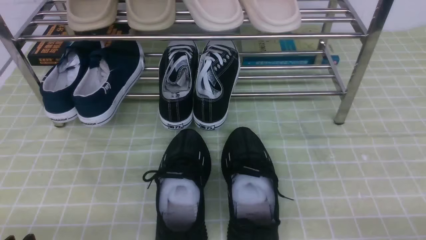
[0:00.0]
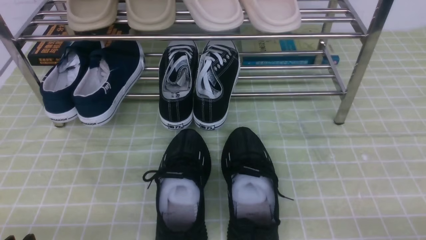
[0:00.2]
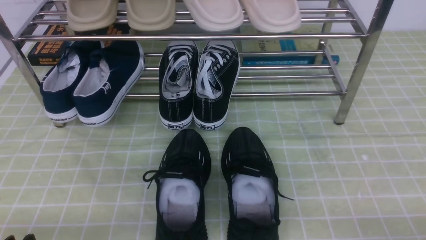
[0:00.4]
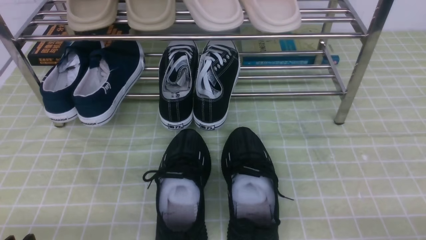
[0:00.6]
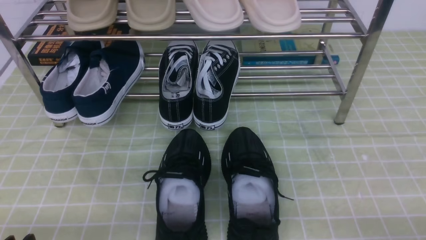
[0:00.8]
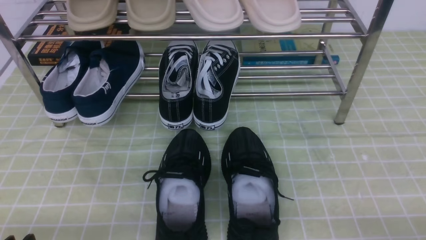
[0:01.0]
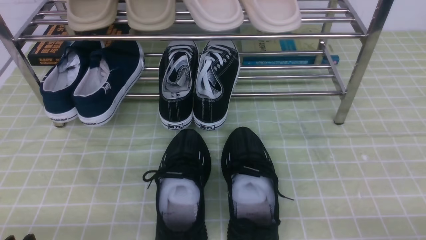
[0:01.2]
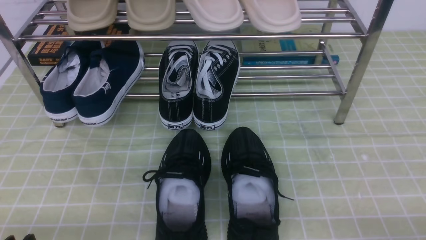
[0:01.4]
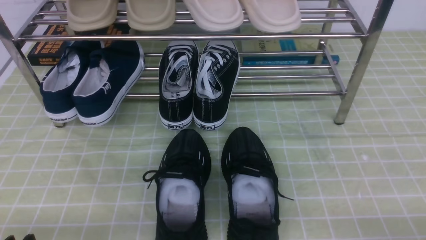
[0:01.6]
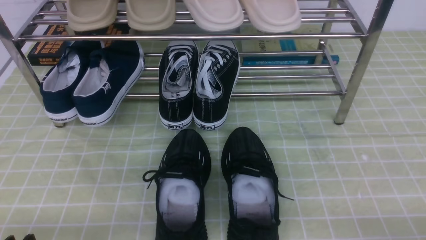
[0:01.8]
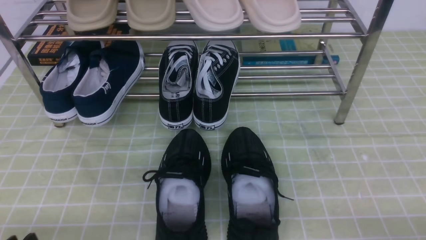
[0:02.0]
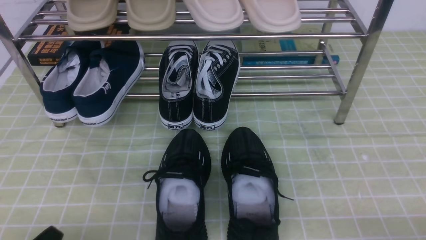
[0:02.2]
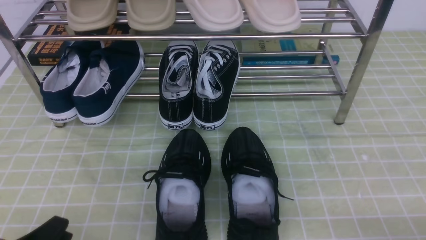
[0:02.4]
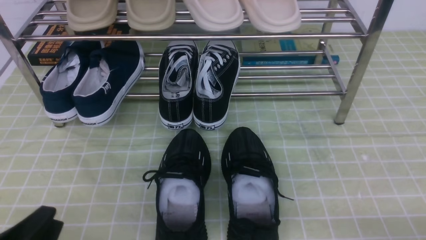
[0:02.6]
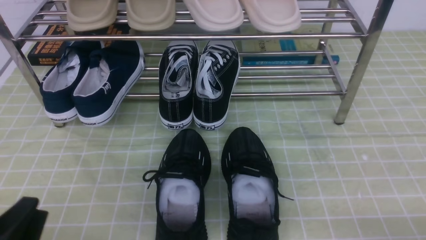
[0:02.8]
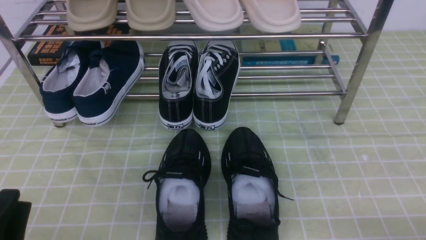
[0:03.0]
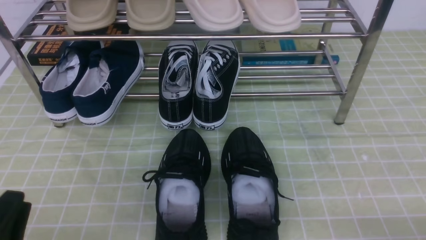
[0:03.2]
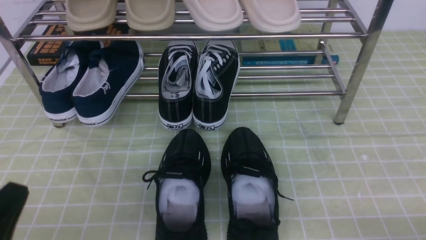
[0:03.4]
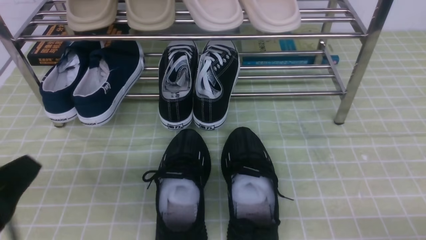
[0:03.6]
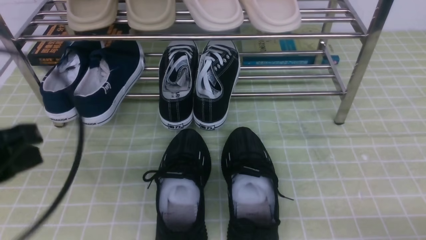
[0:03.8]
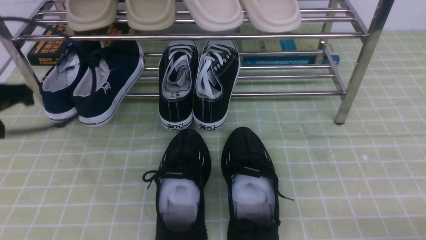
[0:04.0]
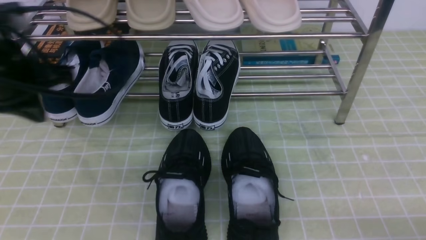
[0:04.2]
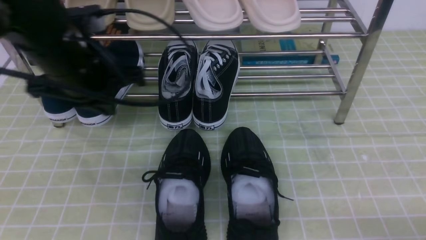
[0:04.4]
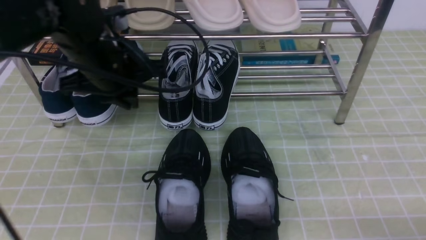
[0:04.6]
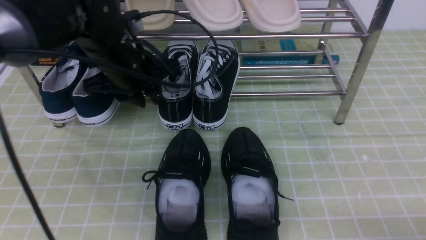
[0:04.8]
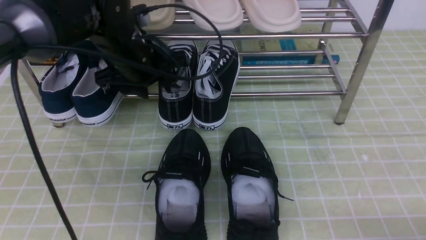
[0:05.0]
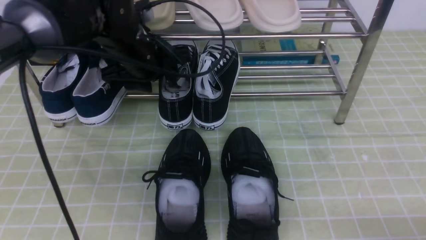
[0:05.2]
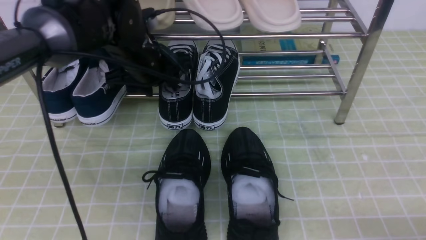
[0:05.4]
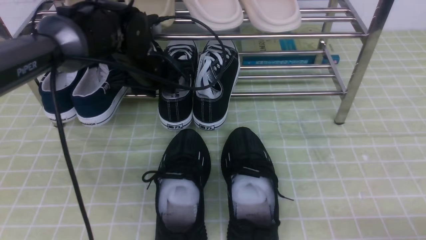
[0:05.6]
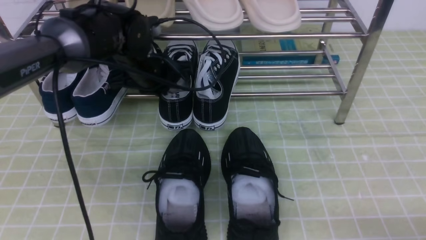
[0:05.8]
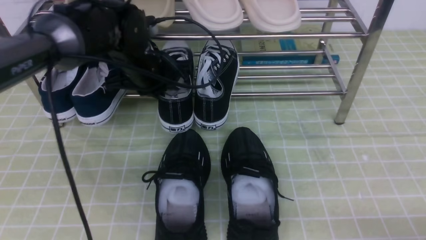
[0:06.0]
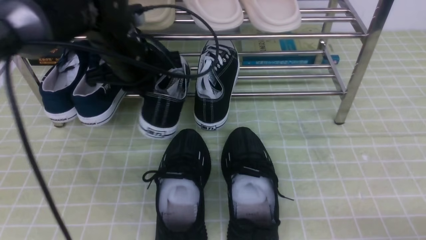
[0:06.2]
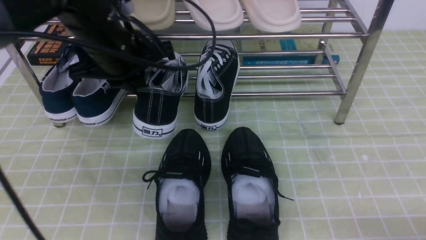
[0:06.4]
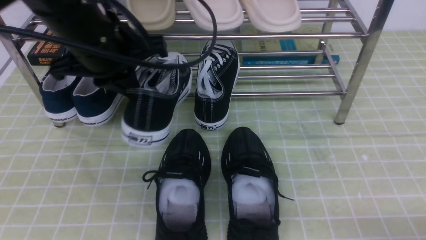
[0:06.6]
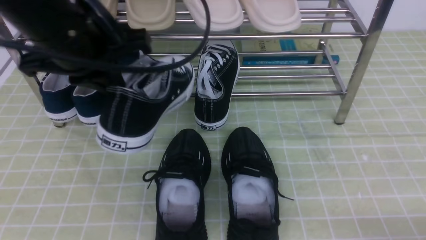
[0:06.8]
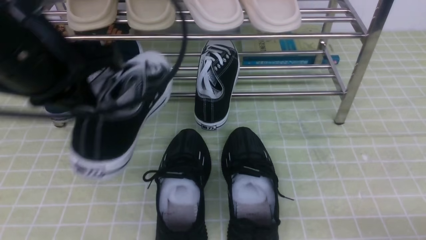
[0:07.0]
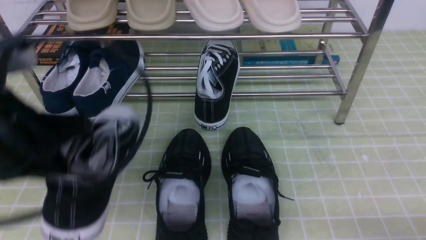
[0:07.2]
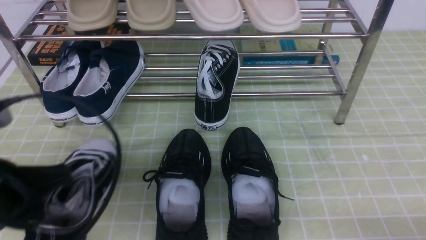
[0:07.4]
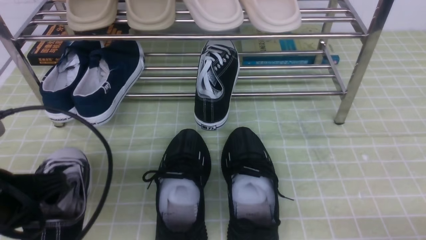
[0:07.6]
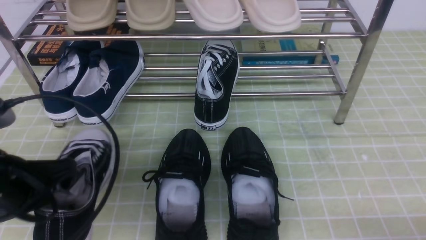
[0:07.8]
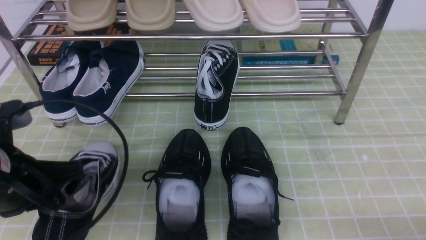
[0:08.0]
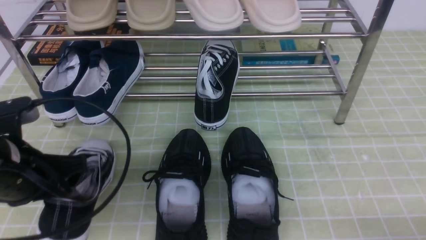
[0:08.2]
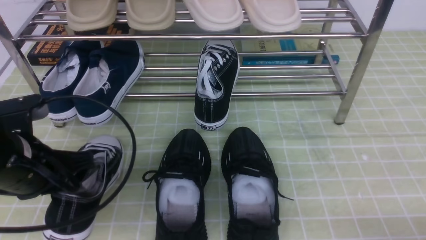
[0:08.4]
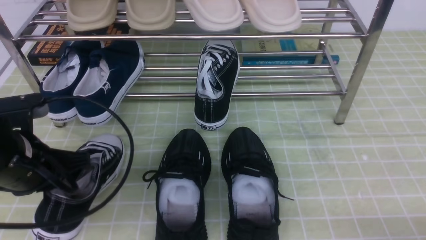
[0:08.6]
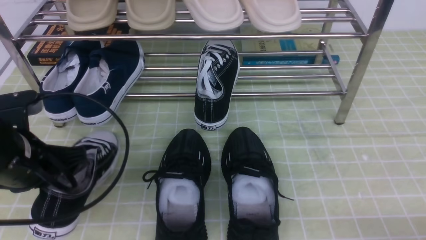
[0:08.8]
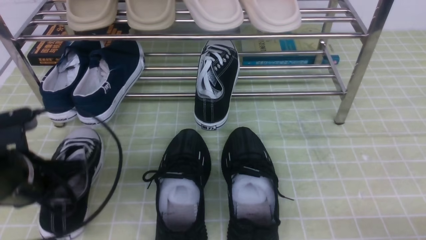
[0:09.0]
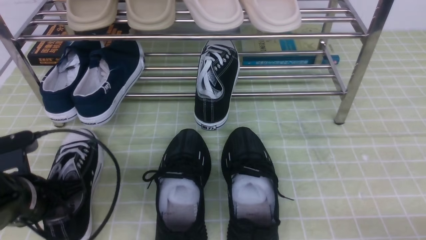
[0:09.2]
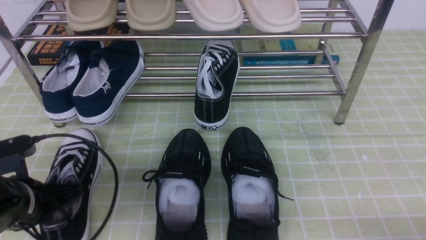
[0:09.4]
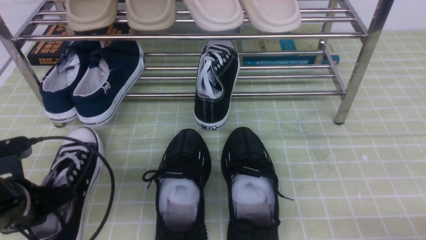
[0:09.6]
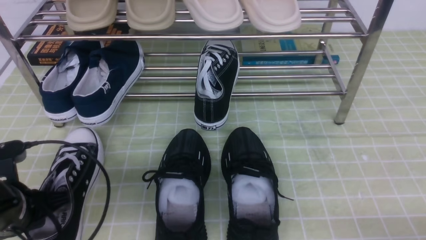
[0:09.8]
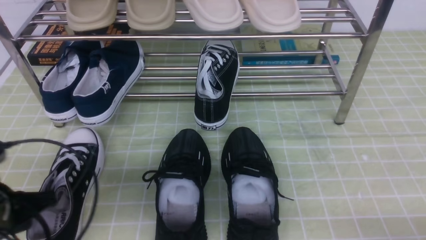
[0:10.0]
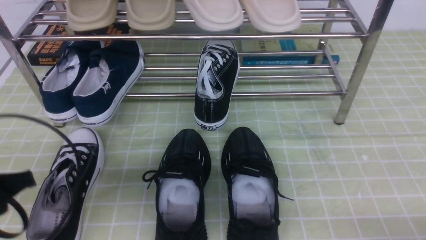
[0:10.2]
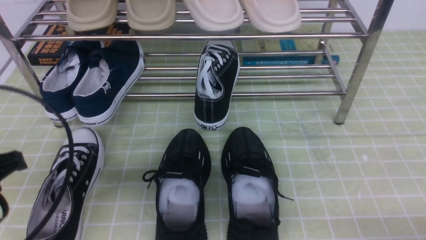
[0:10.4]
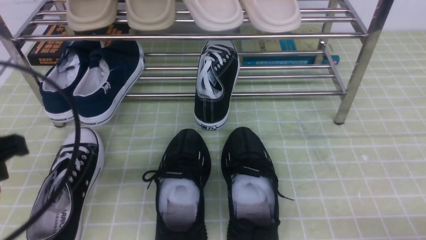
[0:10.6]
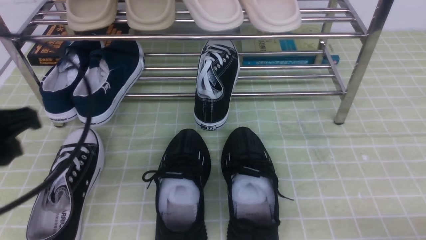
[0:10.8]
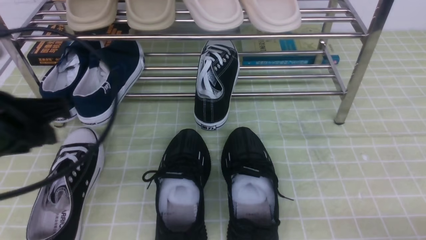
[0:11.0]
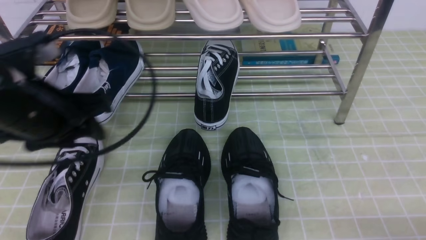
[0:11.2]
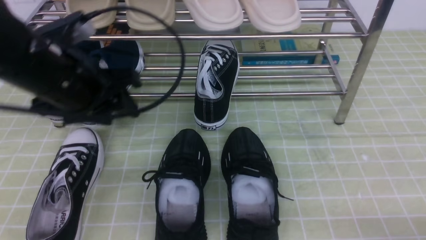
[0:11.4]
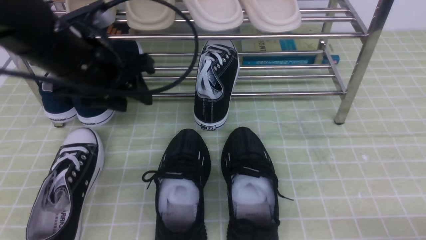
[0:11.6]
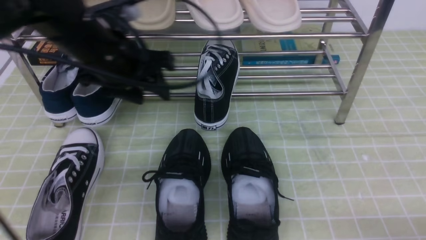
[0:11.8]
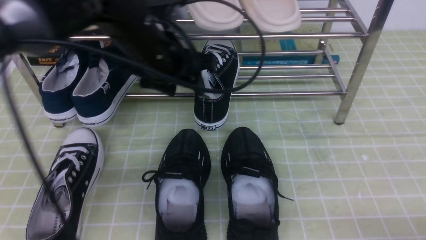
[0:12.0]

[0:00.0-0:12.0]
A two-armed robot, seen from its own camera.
Step, 0:00.0 to 0:05.8: use the left arm to clamp a shoe in the middle of the shoe rack.
Step, 0:06.0 to 0:09.8: Use your left arm to remove the clamped shoe from the shoe rack and put it down.
0:03.0 to 0:04.4: The left gripper heads forward and upward, covering about 30 cm, and closes up.
0:04.4 to 0:06.0: The left gripper is displaced forward, to the right and downward by approximately 15 cm, and opens, then closes again.
0:06.0 to 0:07.6: The left gripper travels backward and to the left by roughly 25 cm.
0:07.6 to 0:09.0: The left gripper heads downward and forward, covering roughly 10 cm.
0:09.0 to 0:10.4: The left gripper moves backward and upward, approximately 10 cm, and opens.
0:10.4 to 0:12.0: The left gripper is displaced forward and to the right by about 25 cm, and opens.

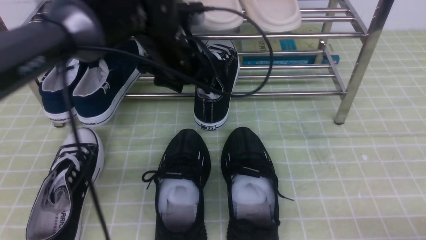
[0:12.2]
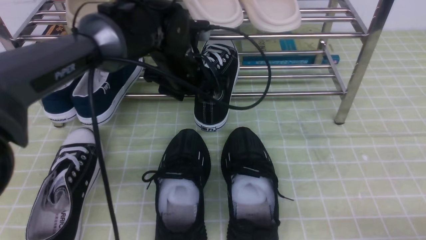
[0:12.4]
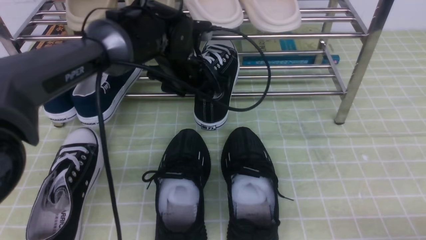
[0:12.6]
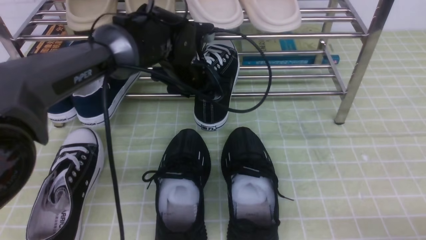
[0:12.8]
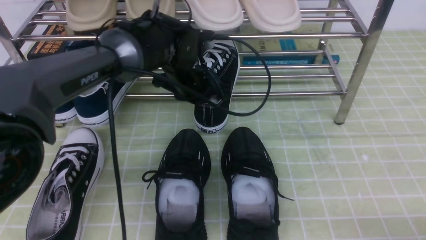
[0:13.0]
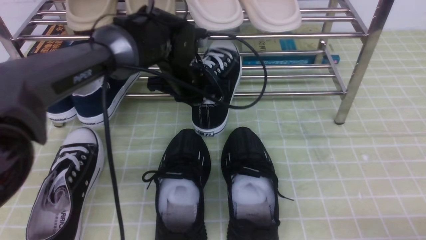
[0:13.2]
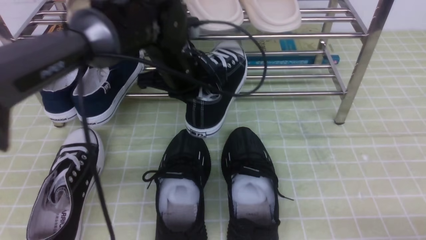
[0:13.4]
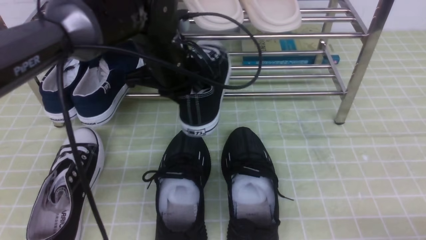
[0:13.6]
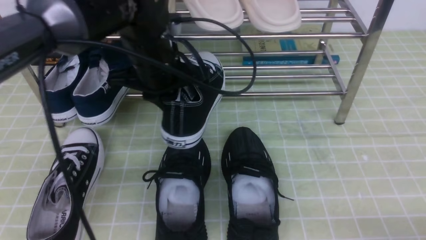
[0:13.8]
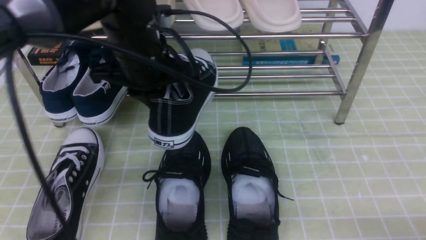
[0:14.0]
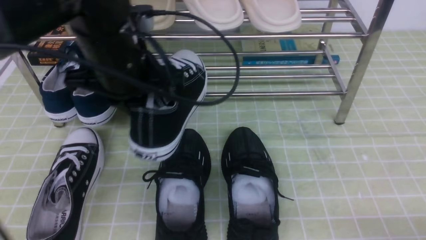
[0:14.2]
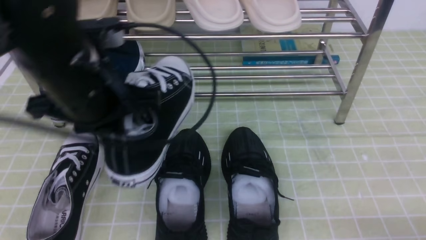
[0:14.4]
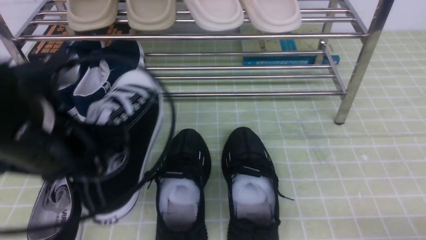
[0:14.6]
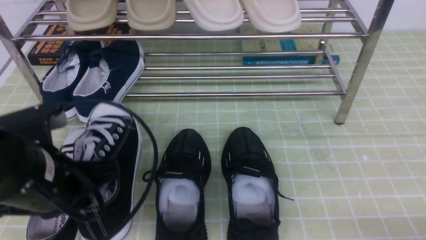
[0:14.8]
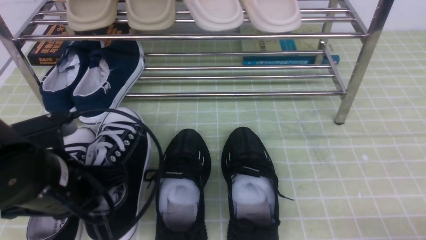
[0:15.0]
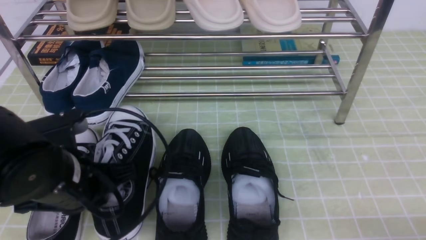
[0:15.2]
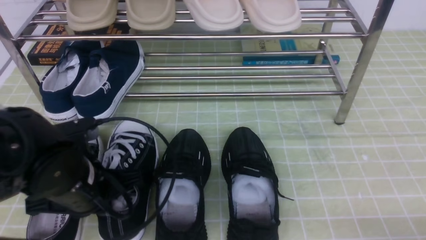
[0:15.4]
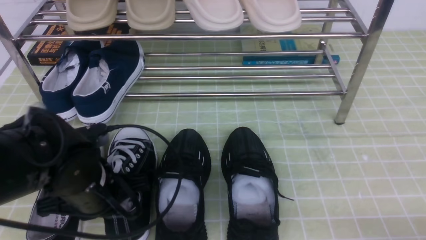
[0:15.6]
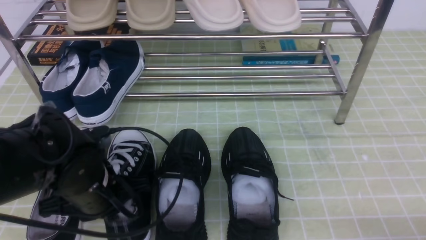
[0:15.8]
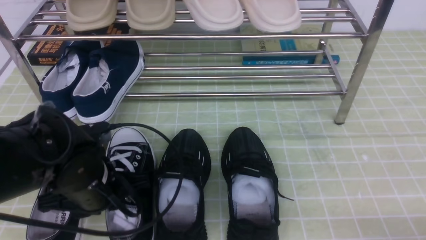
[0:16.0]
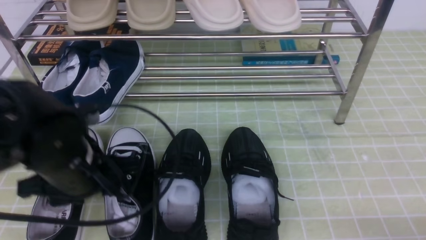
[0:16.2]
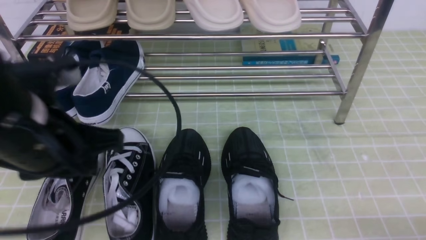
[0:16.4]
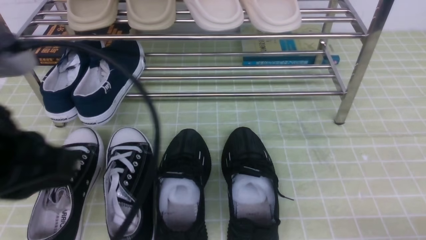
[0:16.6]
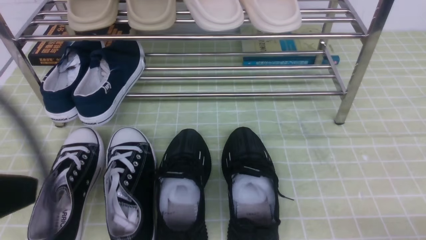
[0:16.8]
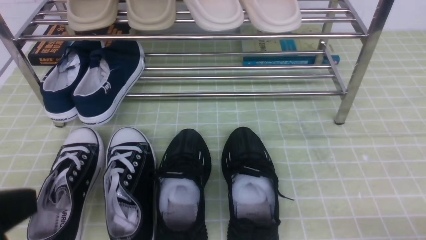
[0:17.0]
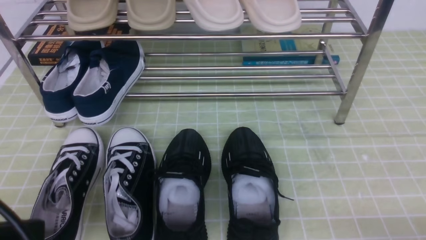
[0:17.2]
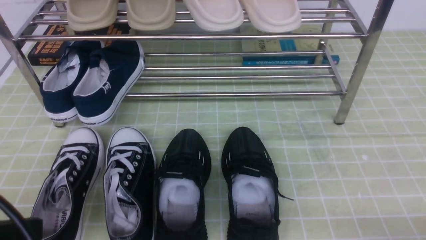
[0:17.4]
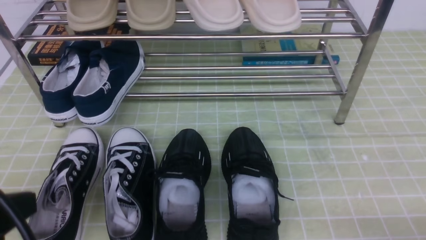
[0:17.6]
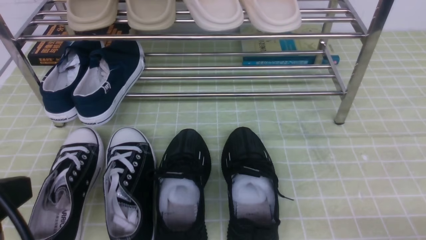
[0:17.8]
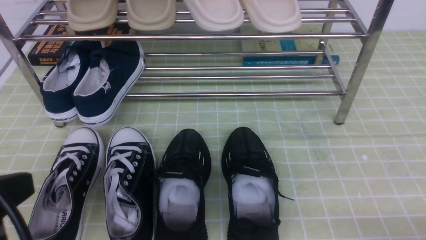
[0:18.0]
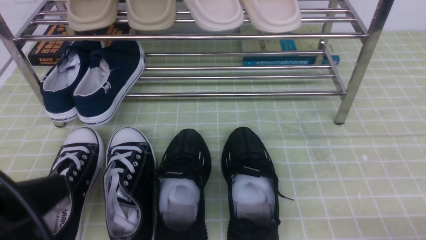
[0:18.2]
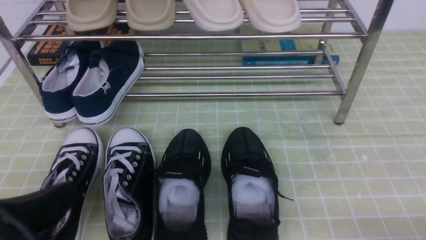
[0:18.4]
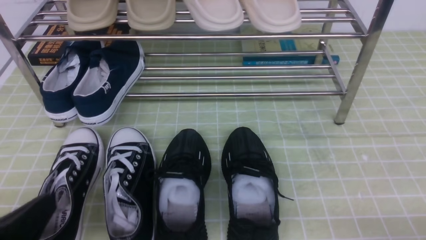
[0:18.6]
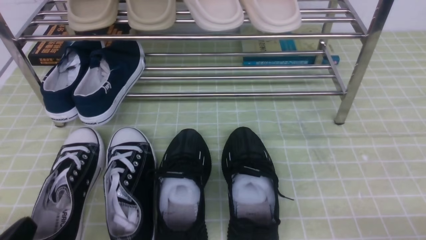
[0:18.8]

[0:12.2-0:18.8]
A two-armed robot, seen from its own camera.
Step, 0:13.6 to 0:16.2: Use your left arm to remove the clamped shoe from the shoe rack and put it down.
0:12.2 to 0:13.8: The left gripper closes up.
0:13.8 to 0:15.4: The left gripper moves backward, to the left and downward, roughly 20 cm.
0:15.4 to 0:17.2: The left gripper is displaced backward, upward and to the left by some 20 cm, and opens and closes again.
0:17.2 to 0:18.8: The left gripper heads downward, covering approximately 15 cm.
